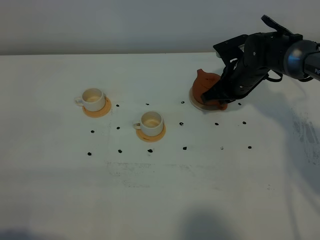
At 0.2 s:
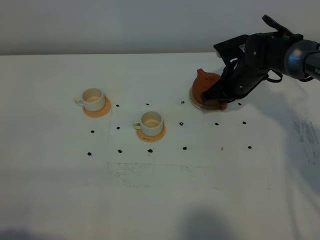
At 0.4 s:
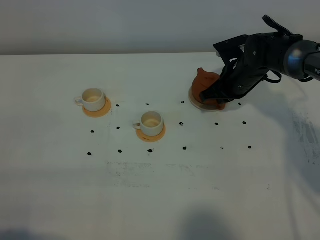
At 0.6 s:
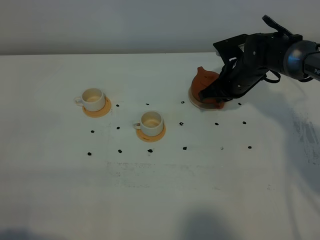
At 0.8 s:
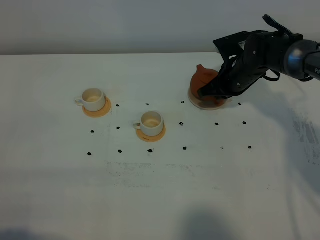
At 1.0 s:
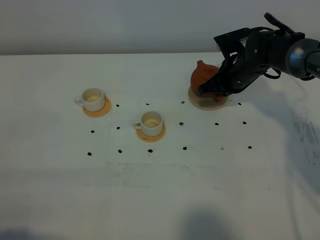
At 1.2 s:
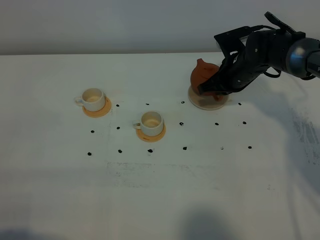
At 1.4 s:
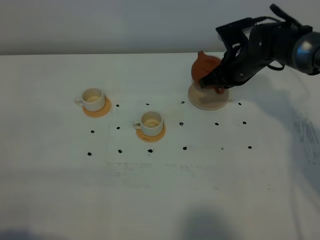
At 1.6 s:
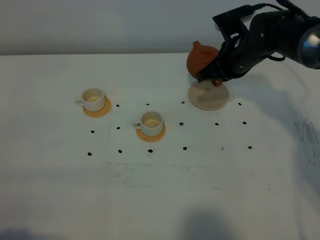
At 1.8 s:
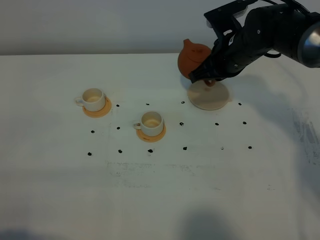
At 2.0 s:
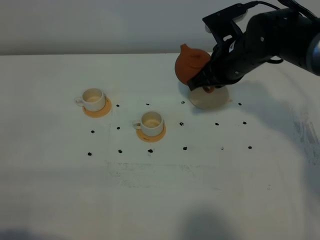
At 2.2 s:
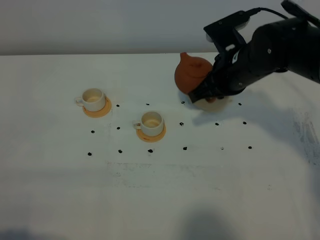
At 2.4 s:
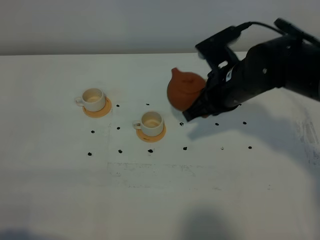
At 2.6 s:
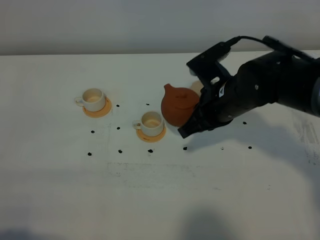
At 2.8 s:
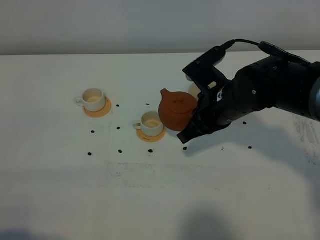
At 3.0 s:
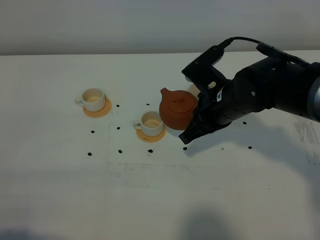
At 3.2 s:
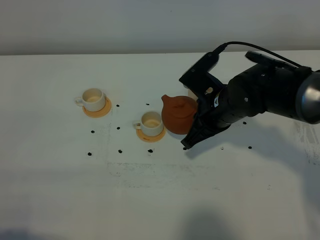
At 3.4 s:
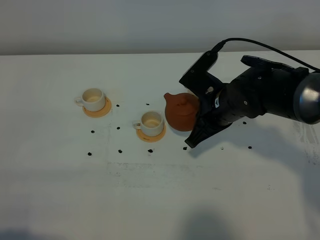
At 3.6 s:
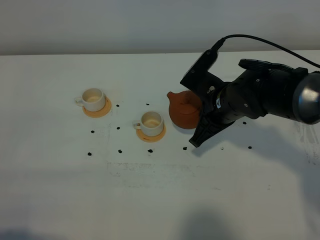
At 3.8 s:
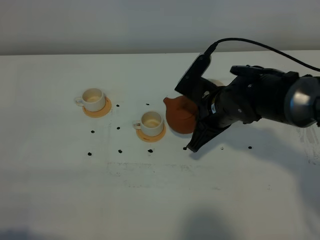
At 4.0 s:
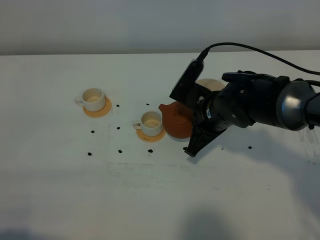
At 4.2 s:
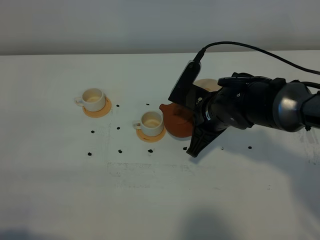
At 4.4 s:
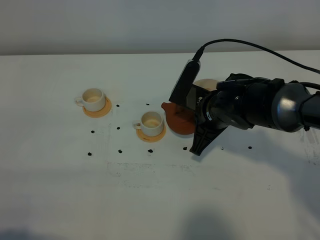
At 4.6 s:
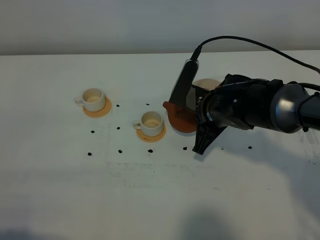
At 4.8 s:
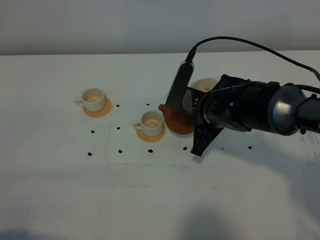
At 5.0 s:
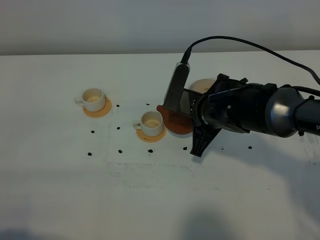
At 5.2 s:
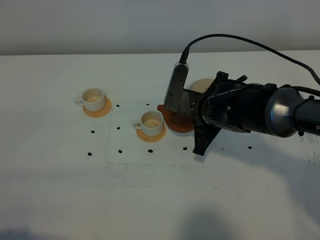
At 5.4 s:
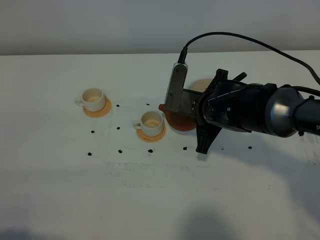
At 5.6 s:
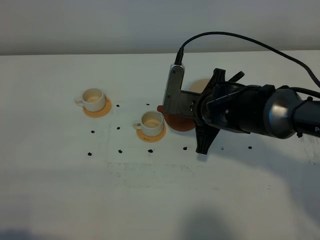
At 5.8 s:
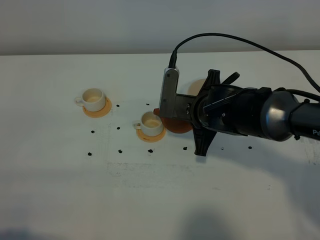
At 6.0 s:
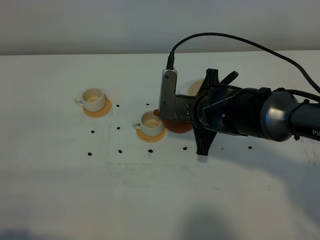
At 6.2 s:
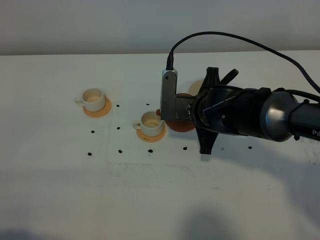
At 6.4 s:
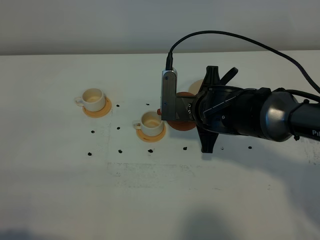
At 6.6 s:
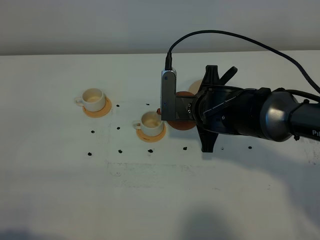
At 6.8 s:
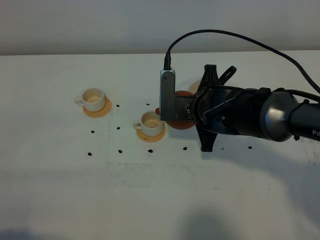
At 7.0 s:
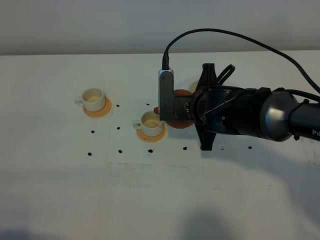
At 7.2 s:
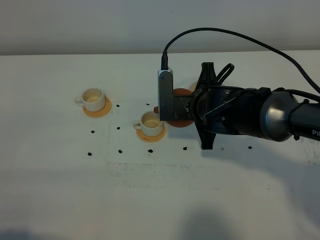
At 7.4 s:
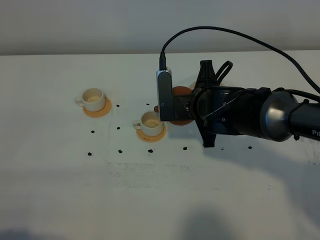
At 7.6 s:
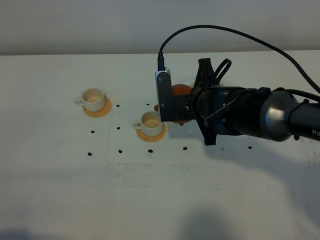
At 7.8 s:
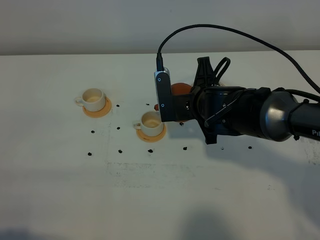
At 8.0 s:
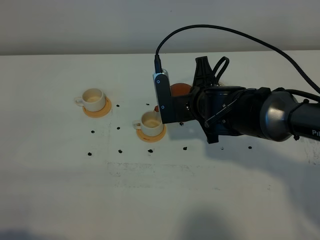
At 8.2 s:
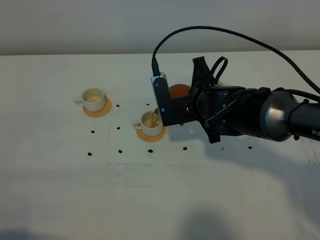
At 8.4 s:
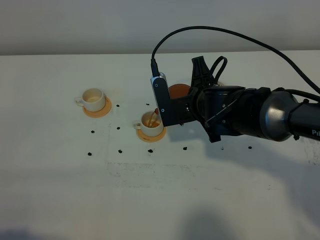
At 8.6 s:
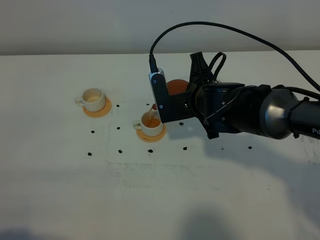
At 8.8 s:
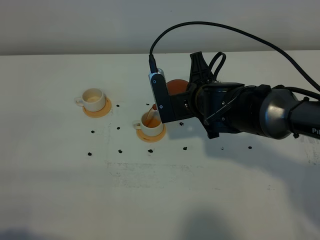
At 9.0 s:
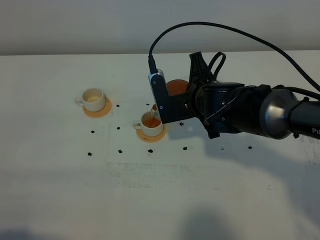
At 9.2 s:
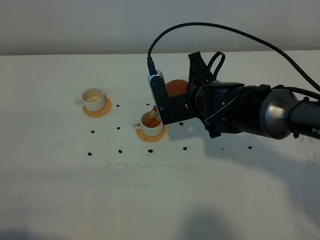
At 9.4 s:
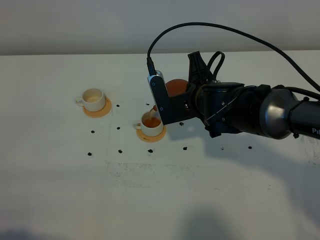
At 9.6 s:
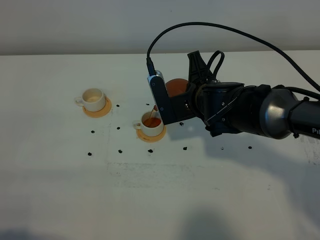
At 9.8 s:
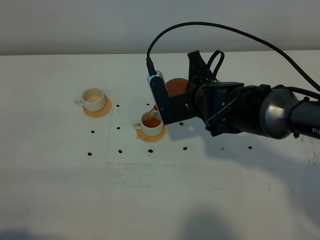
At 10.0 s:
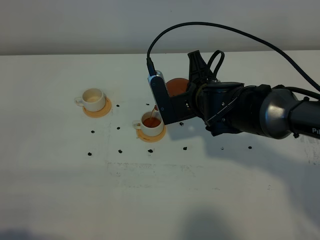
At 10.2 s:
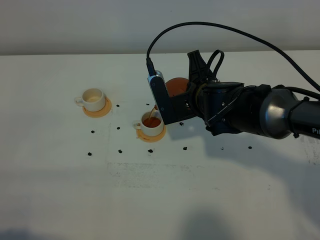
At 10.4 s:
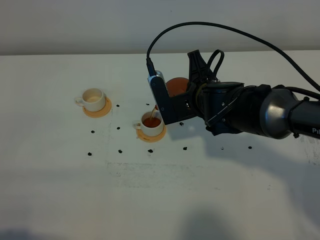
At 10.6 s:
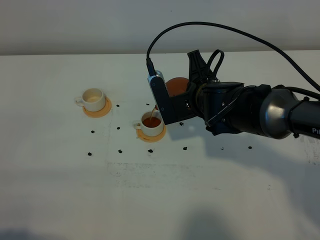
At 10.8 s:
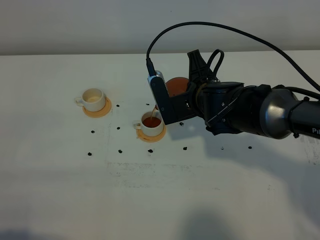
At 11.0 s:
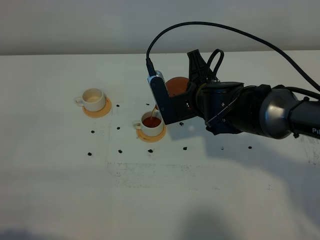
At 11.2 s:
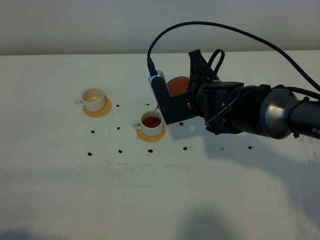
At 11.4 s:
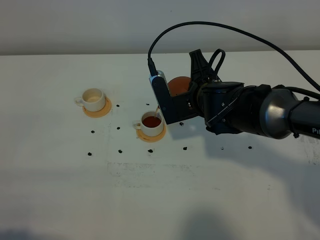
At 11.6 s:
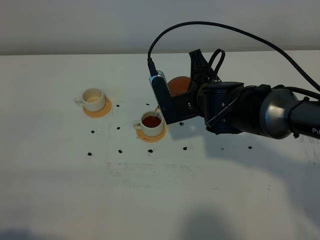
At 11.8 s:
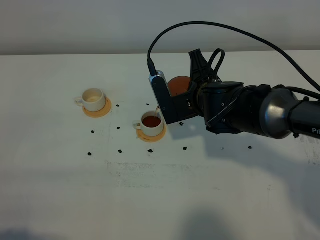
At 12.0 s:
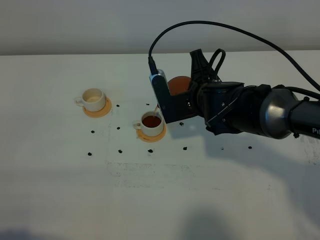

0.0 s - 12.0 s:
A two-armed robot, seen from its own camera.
Task of the whole recording: grasp the brown teapot and pour the tea into the two white teacups one by one, put the brown teapot back in its original place.
0.0 s - 1.6 s: The right gripper moves upward, roughly 5 cm.
1.6 s - 3.0 s: The right gripper moves backward, roughly 10 cm.
6.0 s - 7.6 s: The grippers make only small movements.
7.6 s - 9.0 s: The grippers make only small movements.
9.0 s - 10.4 s: Both grippers stay about where they are.
10.4 s - 12.0 s: The two grippers keep their place.

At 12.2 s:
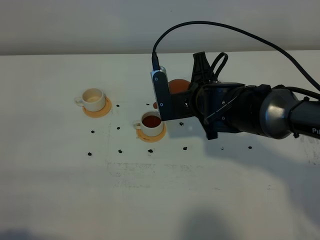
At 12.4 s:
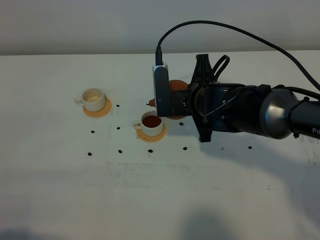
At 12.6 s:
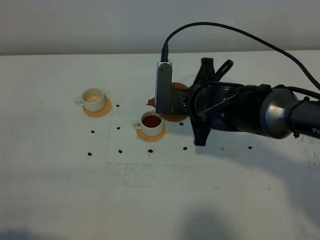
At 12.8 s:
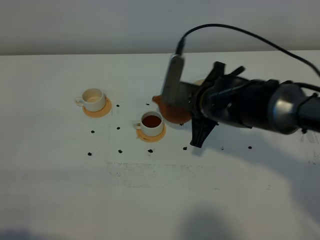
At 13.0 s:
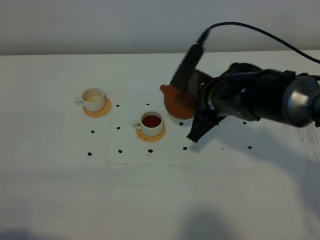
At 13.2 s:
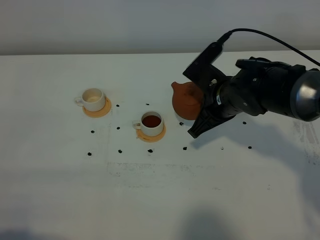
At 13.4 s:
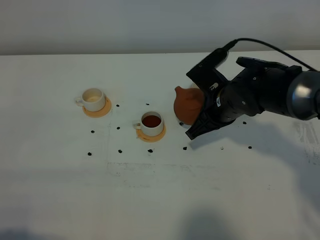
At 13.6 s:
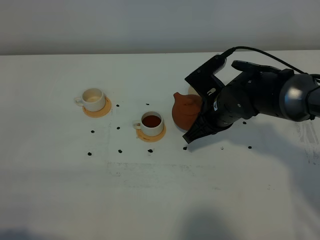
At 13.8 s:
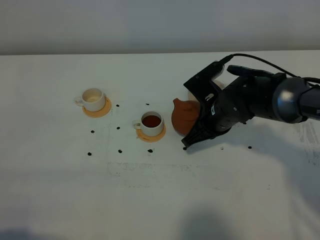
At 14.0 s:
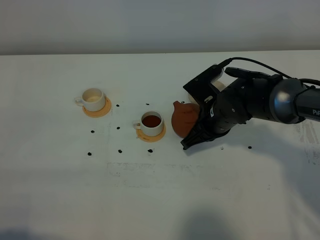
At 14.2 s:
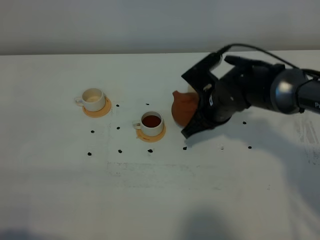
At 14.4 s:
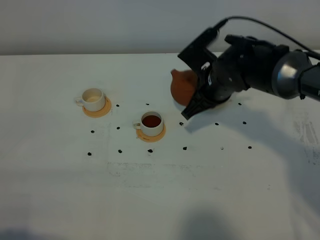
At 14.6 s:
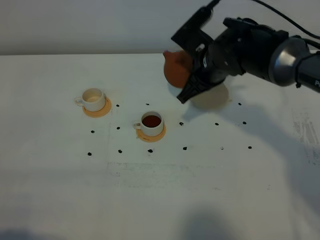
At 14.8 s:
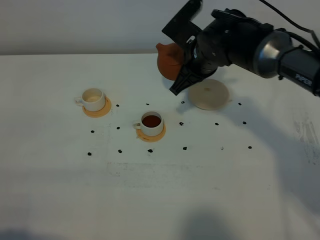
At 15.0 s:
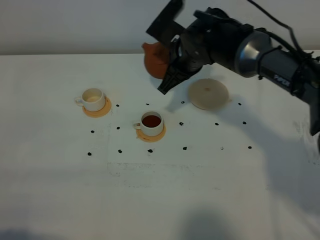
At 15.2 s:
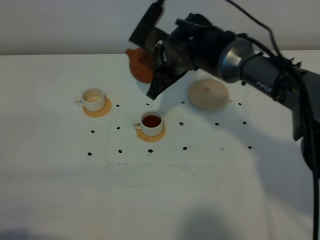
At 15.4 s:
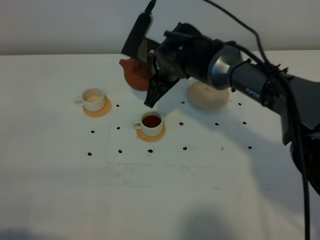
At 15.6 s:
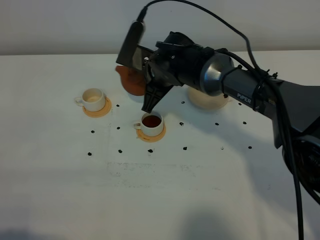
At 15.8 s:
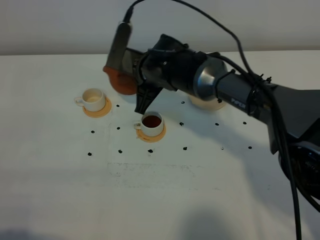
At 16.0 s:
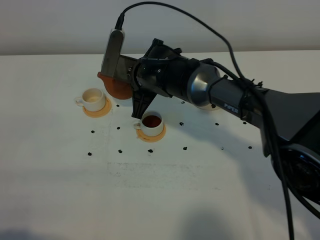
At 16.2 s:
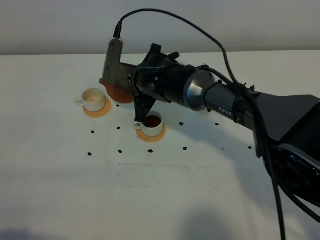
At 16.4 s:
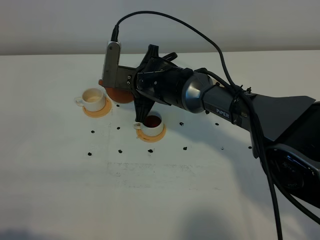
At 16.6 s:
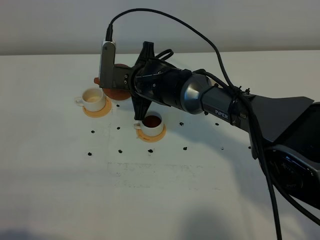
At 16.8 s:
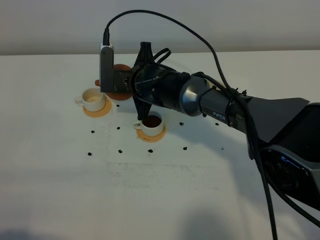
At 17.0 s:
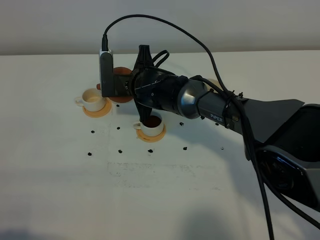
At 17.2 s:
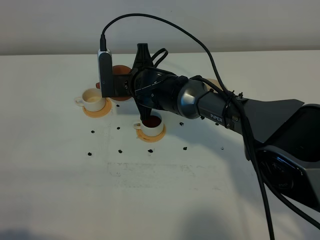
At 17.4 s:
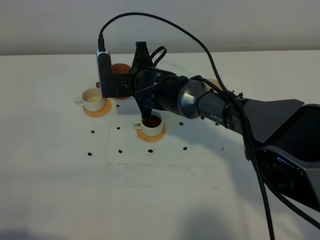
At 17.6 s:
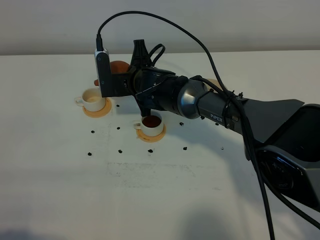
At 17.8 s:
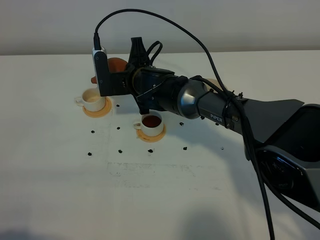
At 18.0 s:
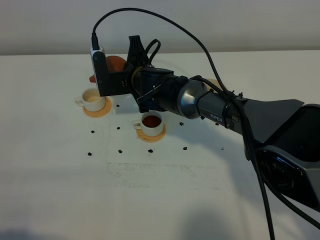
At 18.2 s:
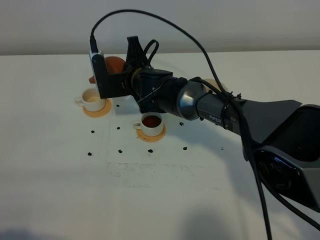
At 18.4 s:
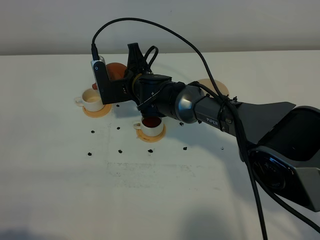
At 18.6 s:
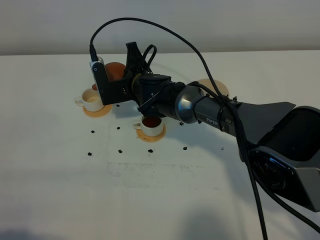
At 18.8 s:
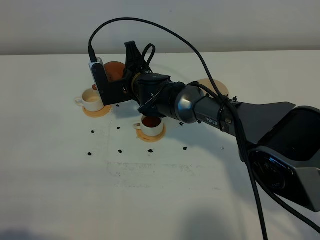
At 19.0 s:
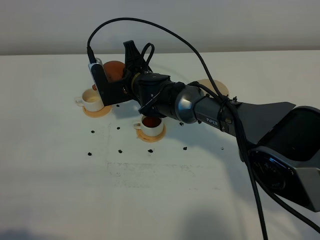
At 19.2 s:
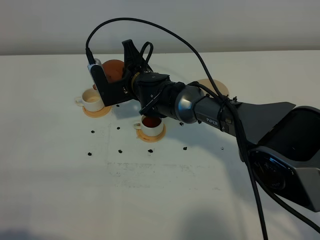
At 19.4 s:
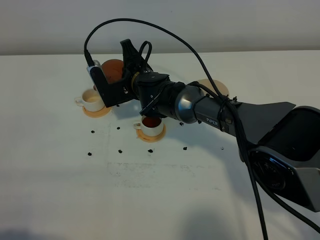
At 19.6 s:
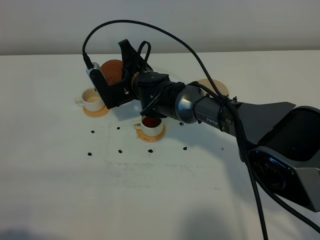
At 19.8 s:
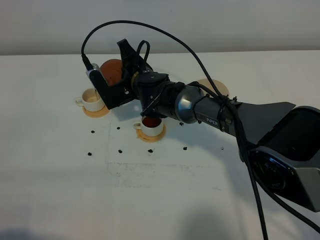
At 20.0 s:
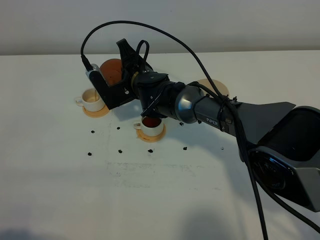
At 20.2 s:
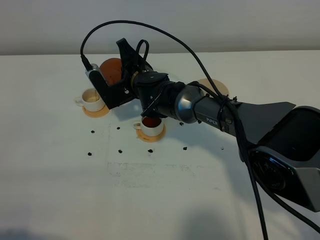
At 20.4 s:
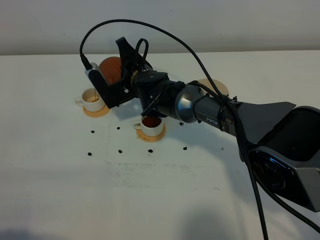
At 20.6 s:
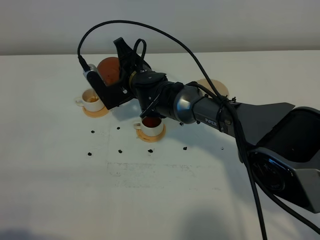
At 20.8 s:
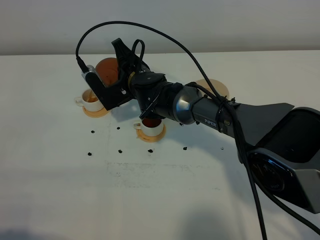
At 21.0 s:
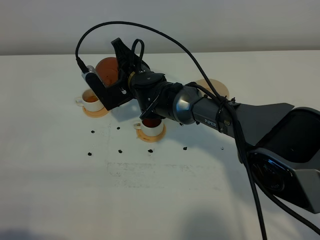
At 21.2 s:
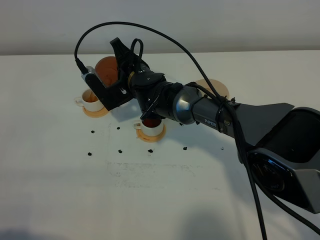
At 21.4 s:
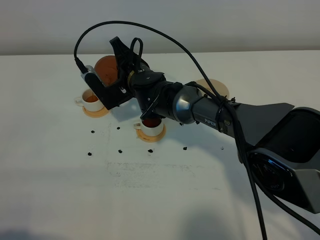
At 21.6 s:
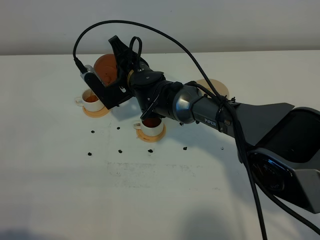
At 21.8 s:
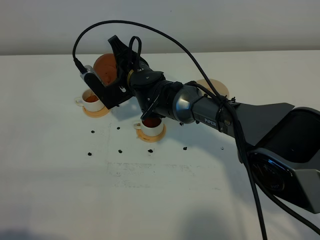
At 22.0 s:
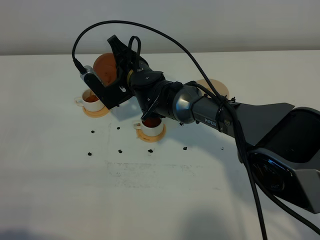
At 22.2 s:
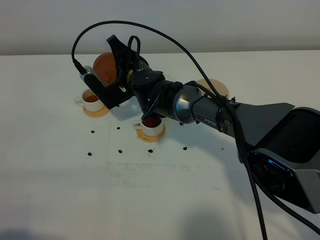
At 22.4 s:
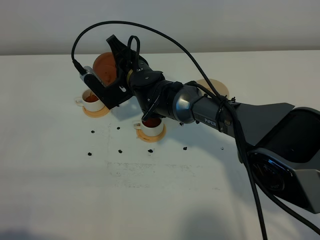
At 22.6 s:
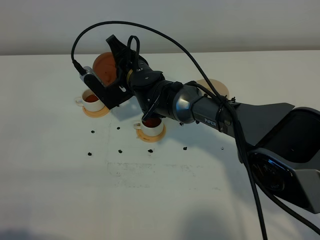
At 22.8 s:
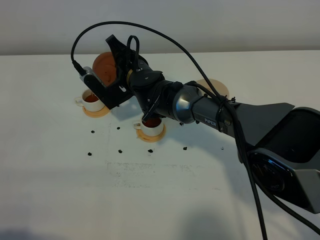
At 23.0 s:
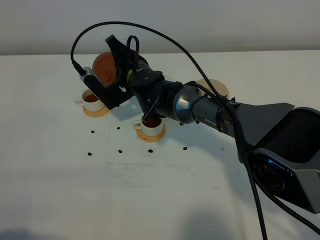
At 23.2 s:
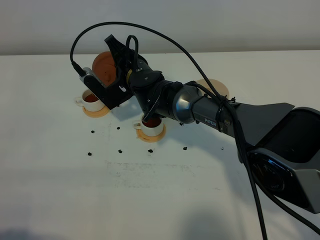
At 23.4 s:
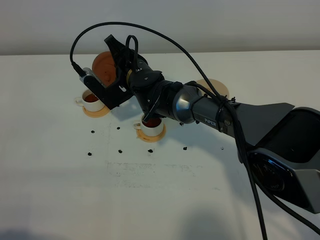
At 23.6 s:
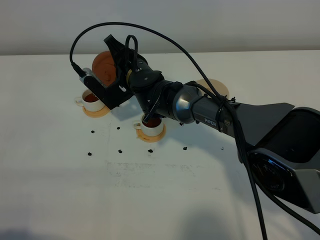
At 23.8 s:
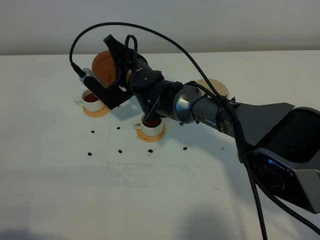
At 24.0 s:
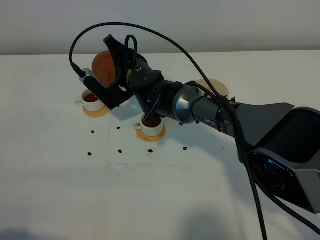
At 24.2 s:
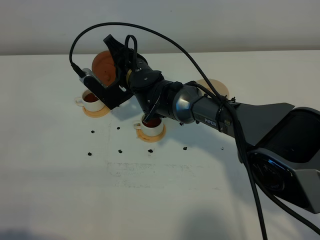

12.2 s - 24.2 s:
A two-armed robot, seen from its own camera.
Task of the whole recording: grasp the brown teapot and pour the tea into the two white teacups one by one, put the brown teapot back in its original place.
12.2 s - 13.8 s: The right gripper moves approximately 5 cm.
13.8 s - 15.2 s: The right gripper heads to the left, upward and forward, covering some 15 cm.
15.2 s - 16.6 s: The right gripper heads downward and to the left, covering some 5 cm.
18.2 s - 19.8 s: There are only small adjustments of the grippers.
19.8 s - 22.6 s: The grippers stay close to where they were, moving slightly.
22.6 s - 24.2 s: The two grippers keep their place.
